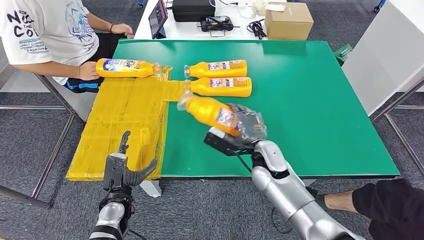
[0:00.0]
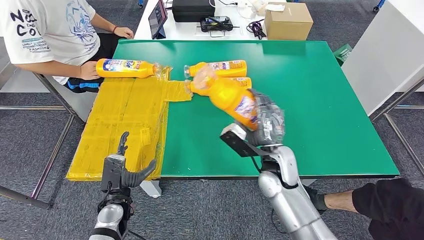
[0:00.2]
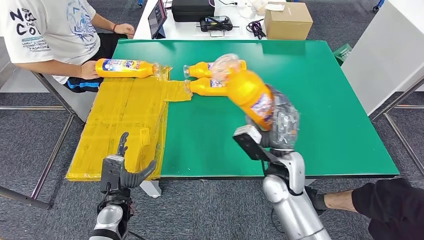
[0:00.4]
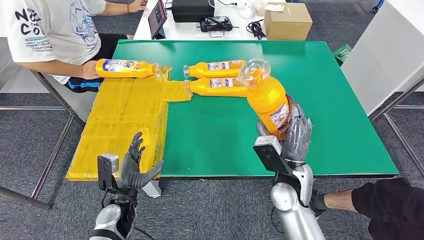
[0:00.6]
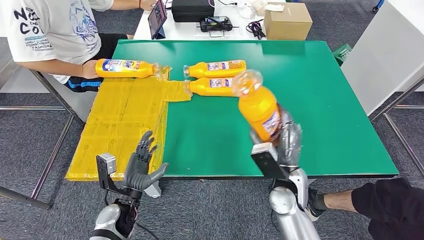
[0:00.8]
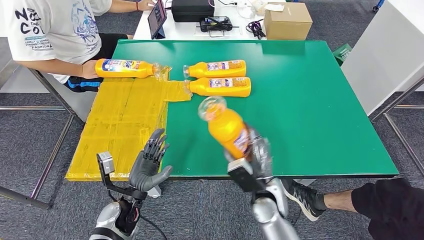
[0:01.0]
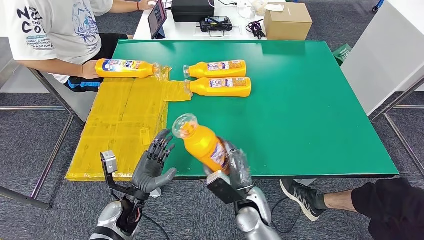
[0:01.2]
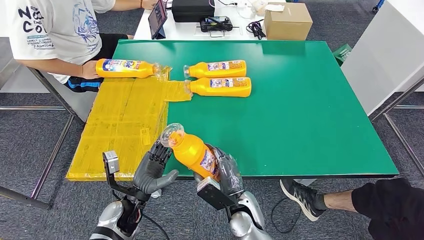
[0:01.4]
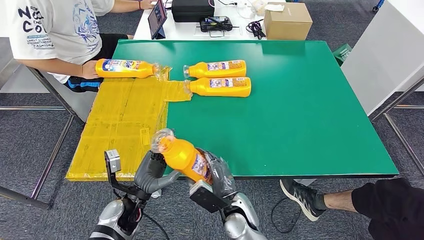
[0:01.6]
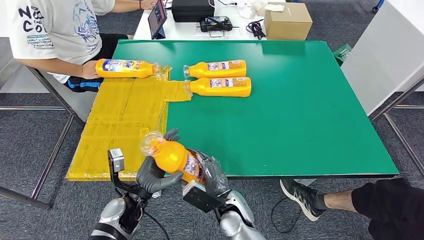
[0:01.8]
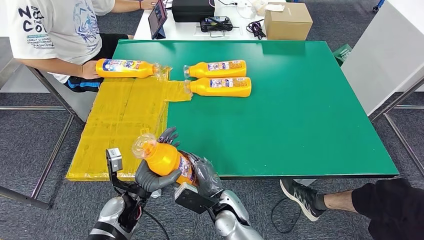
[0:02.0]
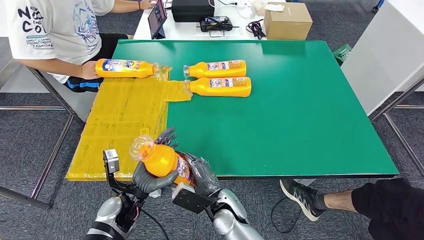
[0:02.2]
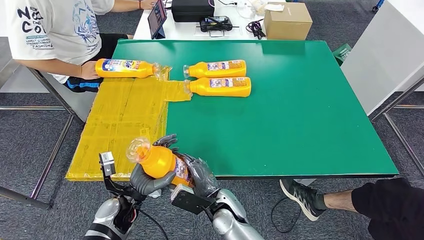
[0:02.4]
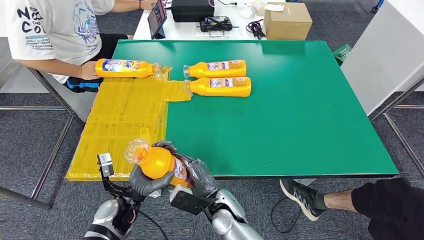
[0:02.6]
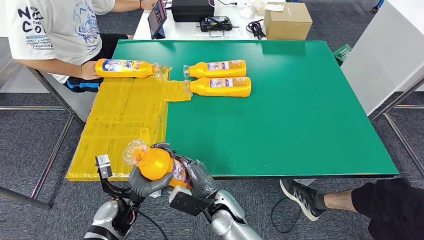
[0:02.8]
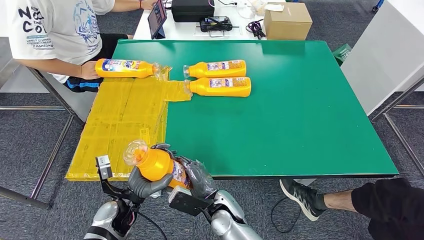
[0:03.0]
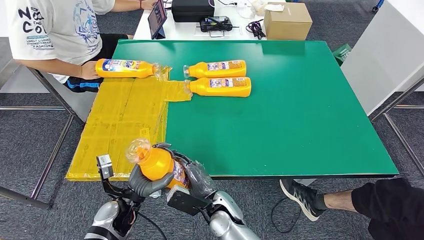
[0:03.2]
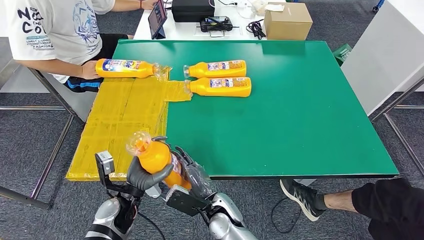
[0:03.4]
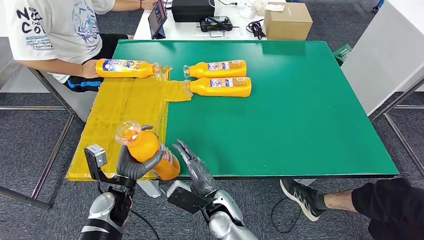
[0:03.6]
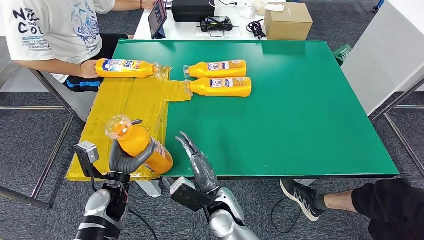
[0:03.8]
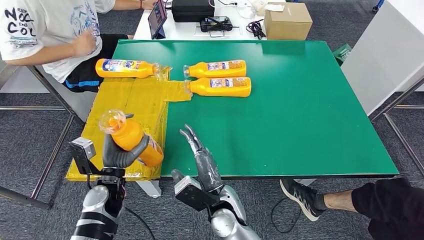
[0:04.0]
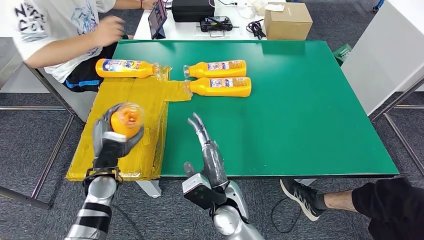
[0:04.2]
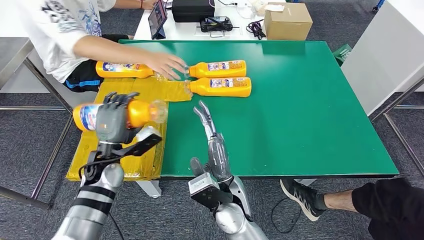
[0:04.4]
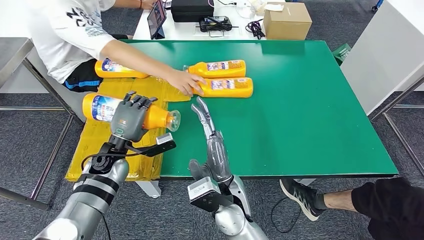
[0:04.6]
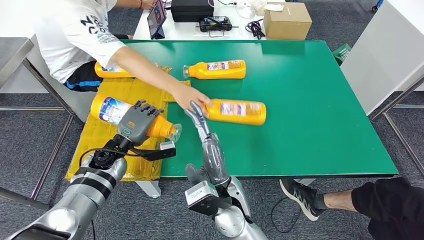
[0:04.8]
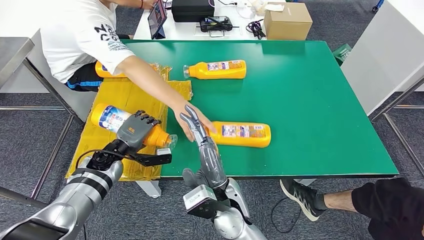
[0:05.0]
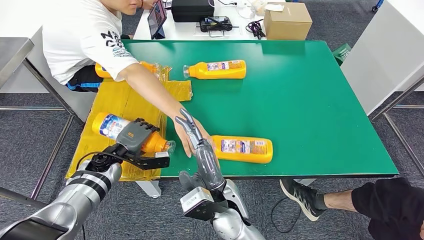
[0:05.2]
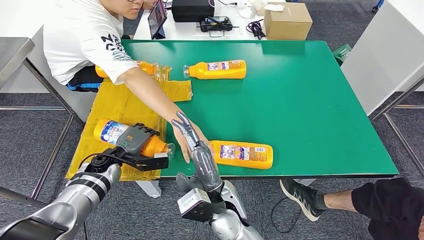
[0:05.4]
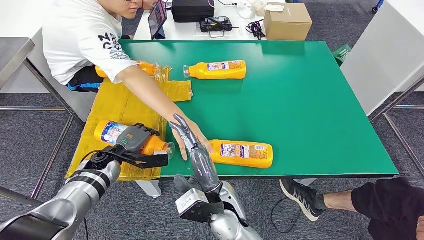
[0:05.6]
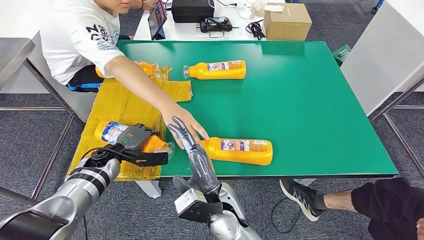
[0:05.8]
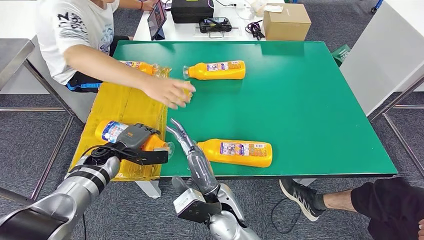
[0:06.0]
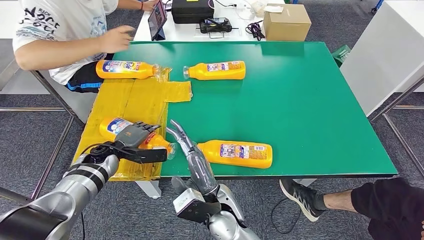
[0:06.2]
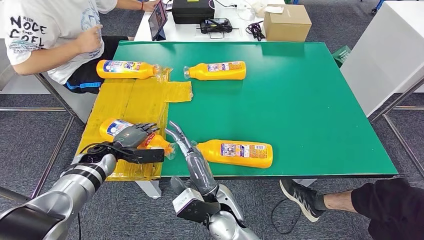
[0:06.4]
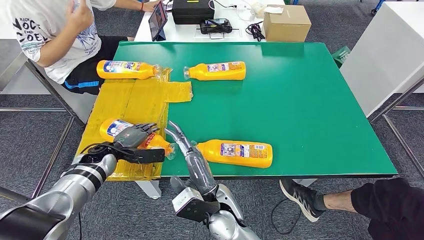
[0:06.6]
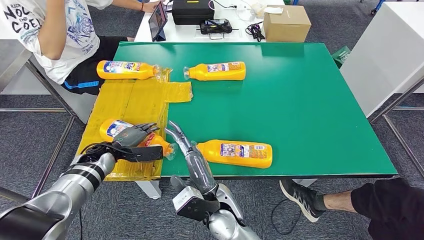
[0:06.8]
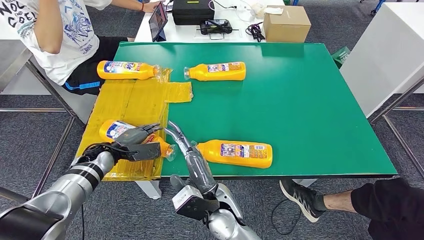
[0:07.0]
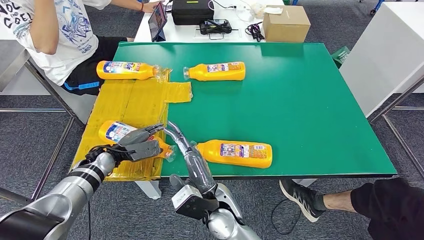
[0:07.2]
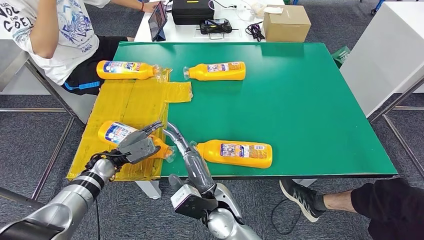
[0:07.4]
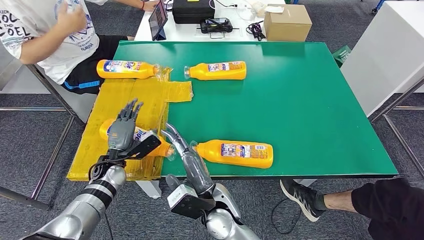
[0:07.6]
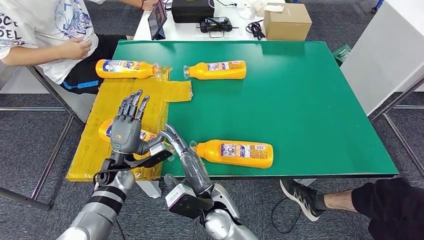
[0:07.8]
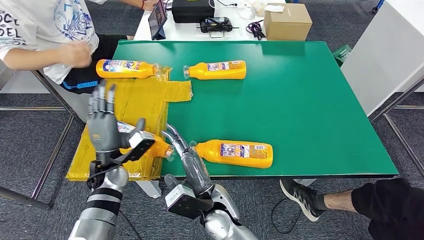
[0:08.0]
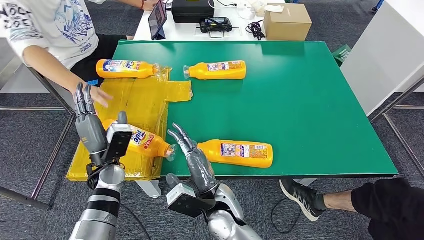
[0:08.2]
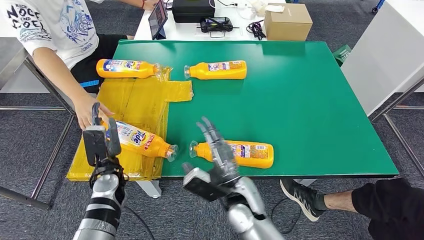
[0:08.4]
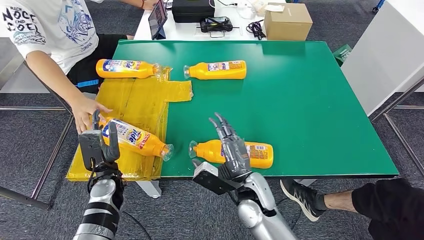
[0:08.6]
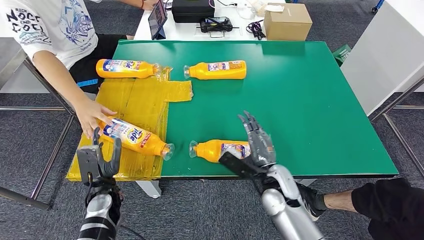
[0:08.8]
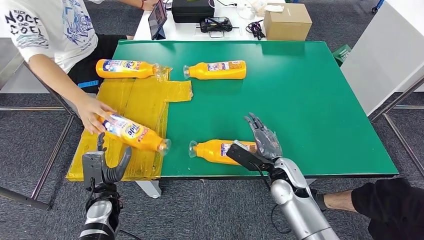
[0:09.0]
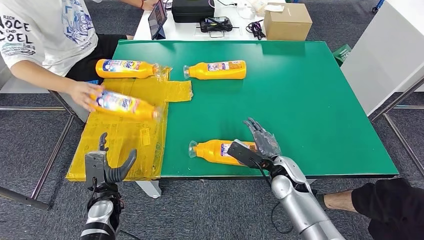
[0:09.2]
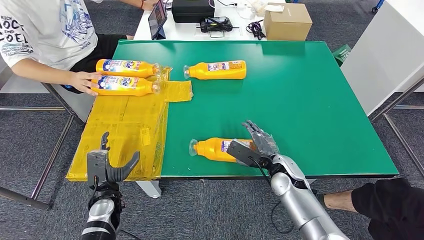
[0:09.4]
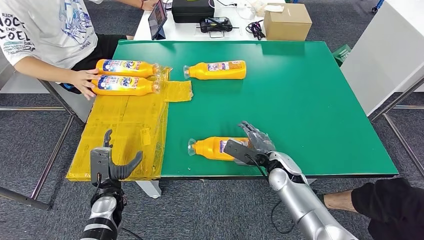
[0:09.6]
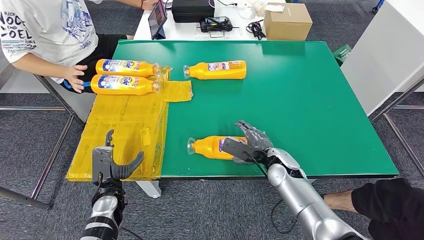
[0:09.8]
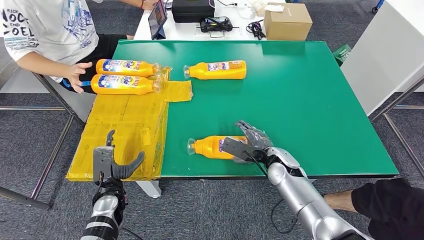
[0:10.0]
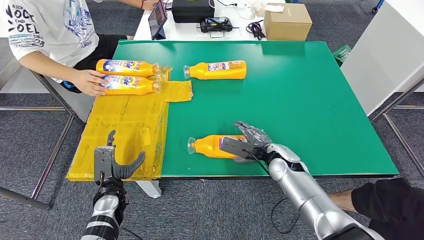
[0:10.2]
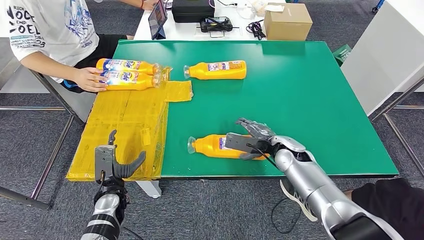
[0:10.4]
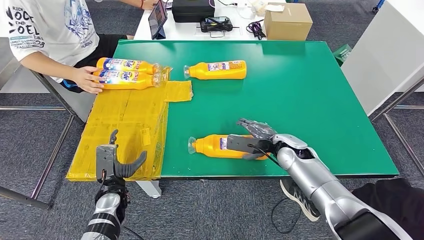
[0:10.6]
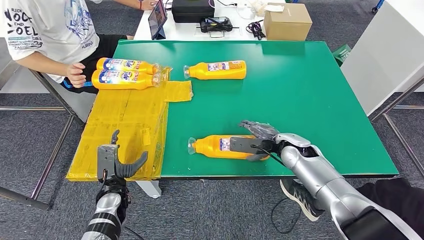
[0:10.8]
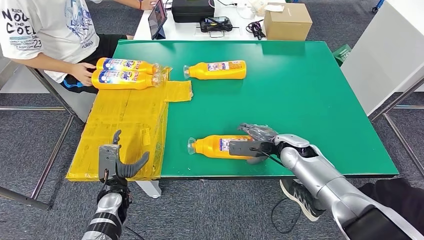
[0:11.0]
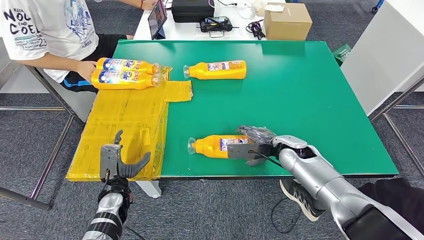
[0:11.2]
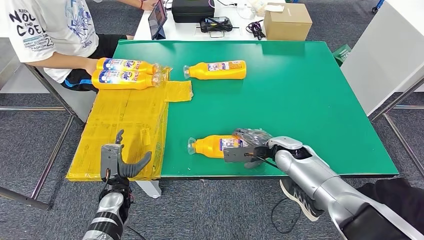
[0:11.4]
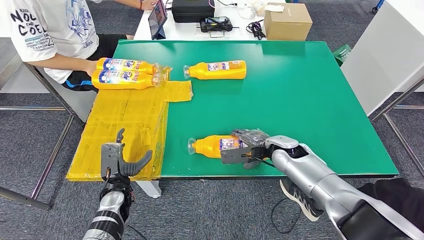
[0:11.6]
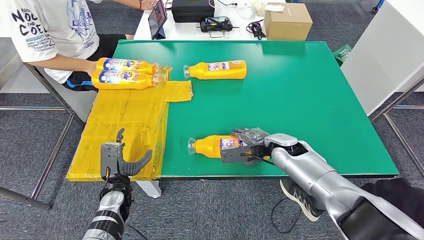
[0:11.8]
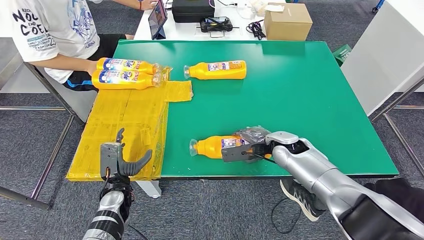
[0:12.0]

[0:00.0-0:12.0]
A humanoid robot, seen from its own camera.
Step, 0:01.8 to 0:07.8: Flip the fast-moving consumer goods bottle to the front side.
0:01.6 to 0:03.0: The hands move only a little.
0:09.0 to 0:10.4: The right hand moves forward, approximately 5 cm.

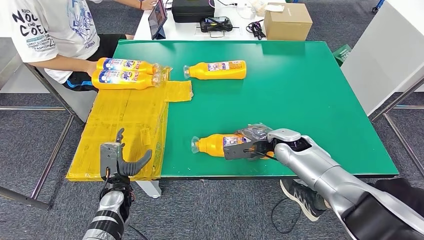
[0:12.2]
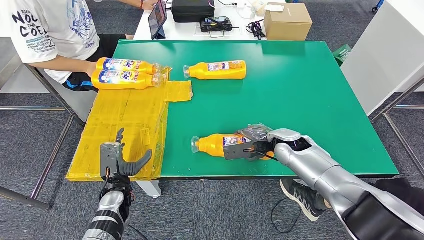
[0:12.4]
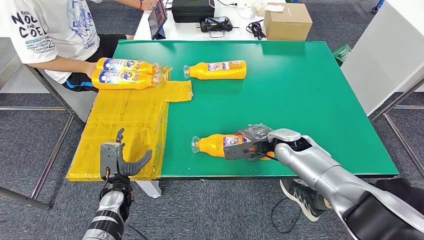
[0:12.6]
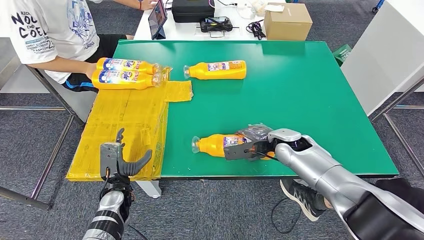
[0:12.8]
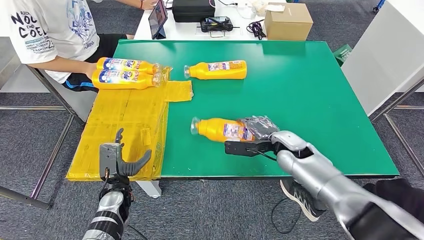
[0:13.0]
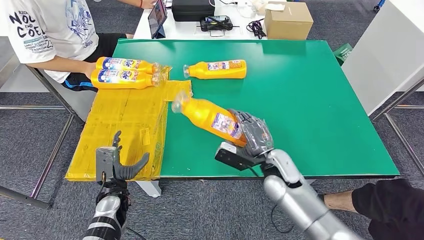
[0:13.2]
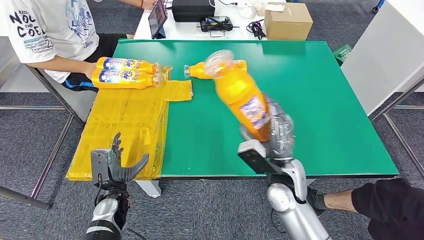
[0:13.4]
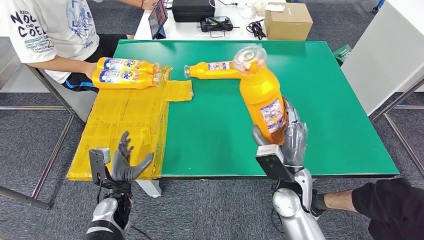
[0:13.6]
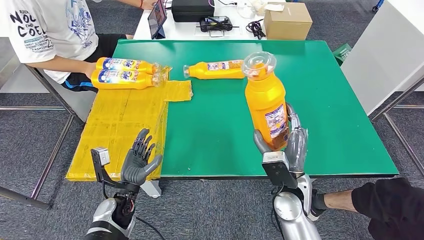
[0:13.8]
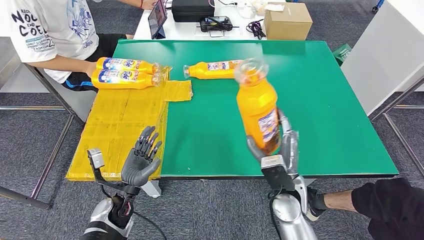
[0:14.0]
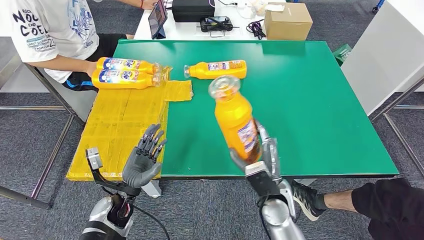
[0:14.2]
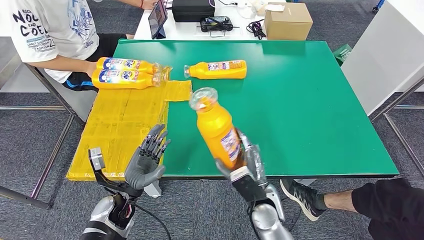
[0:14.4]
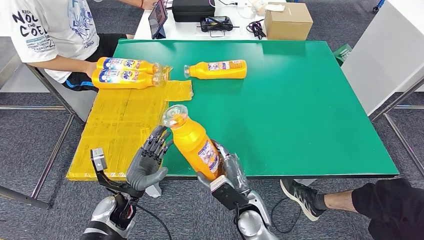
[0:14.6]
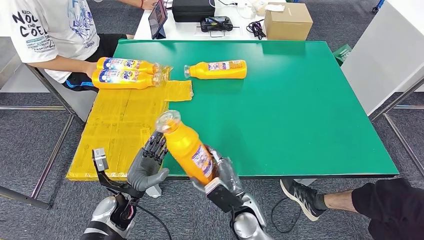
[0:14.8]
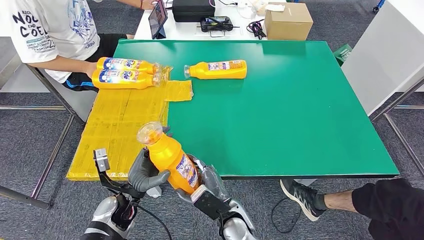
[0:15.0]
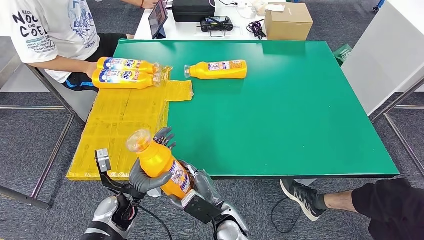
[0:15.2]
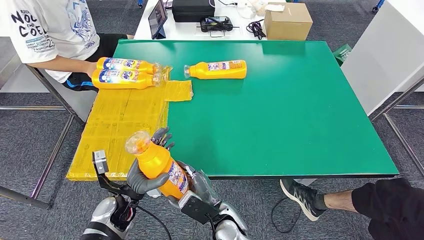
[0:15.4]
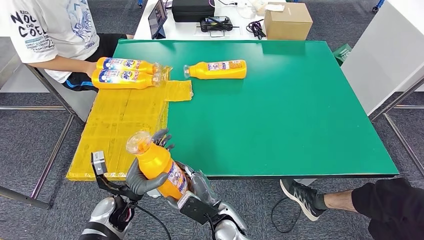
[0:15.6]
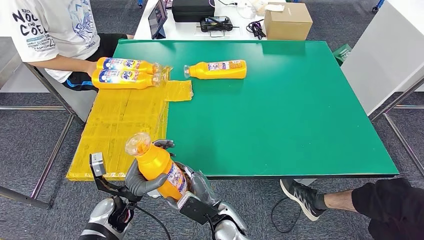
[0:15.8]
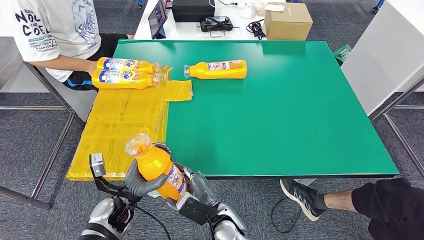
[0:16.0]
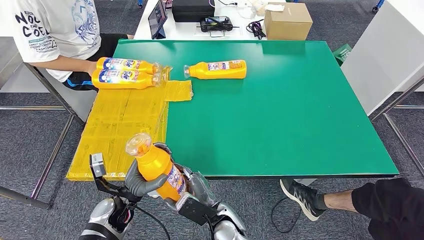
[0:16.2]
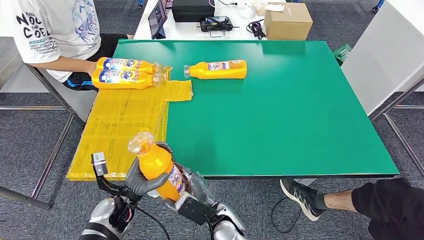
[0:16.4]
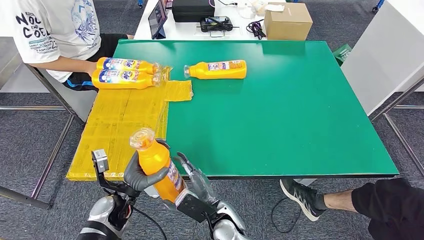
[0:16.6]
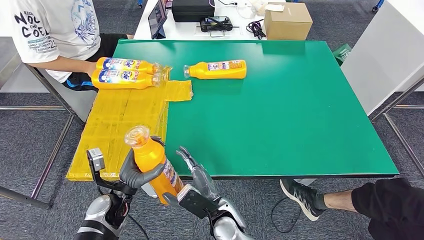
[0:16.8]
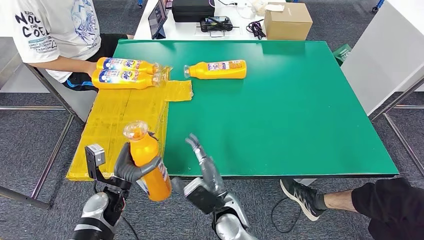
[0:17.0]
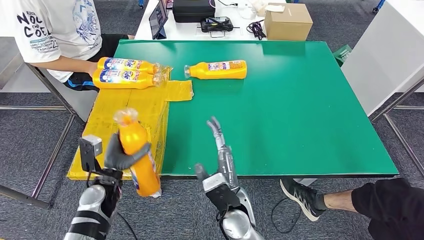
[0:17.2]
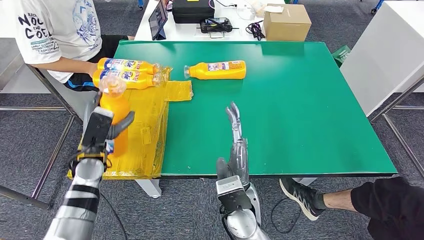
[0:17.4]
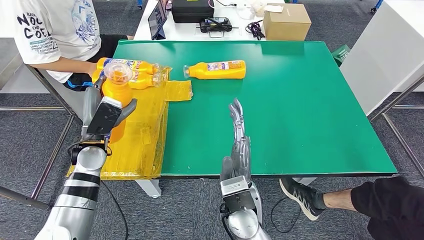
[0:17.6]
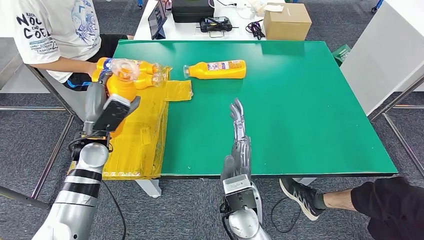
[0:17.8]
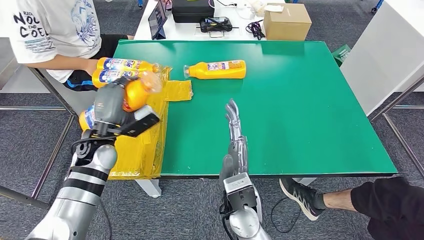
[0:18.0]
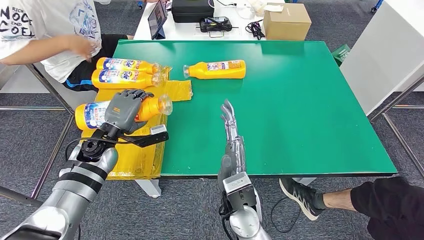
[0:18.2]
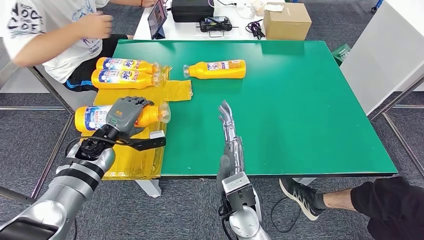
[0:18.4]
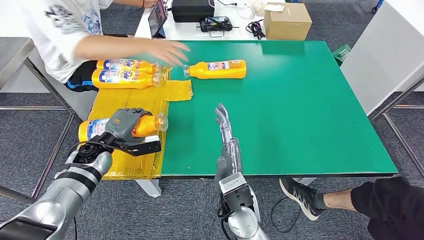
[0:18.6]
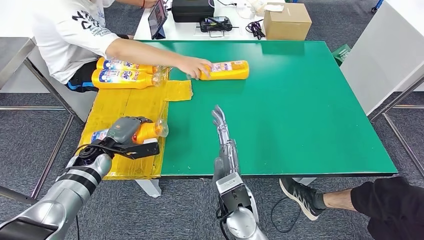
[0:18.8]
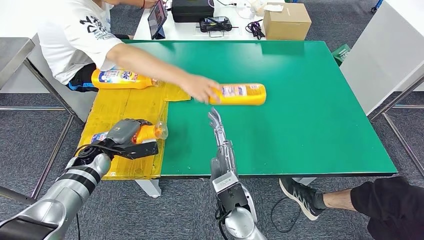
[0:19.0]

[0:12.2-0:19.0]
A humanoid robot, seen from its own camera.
Step, 0:12.2 to 0:14.6: Pick up the fast-moving consumer goods bottle from the table.
0:12.2 to 0:13.6: The right hand travels backward by roughly 10 cm.
0:13.6 to 0:15.0: The right hand goes roughly 15 cm to the left, downward and backward.
0:15.0 to 0:16.2: The hands make only small movements.
